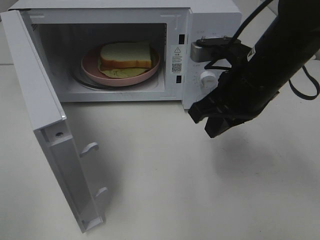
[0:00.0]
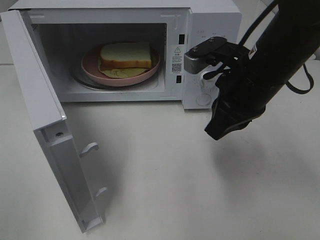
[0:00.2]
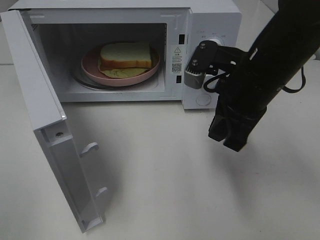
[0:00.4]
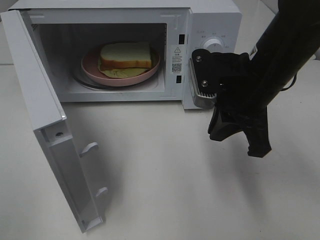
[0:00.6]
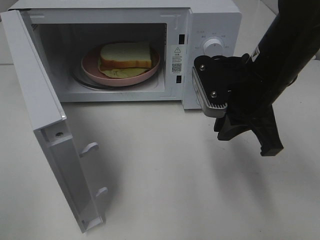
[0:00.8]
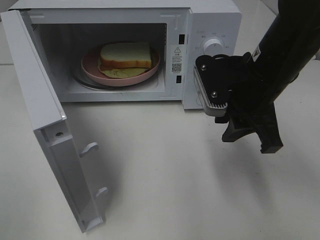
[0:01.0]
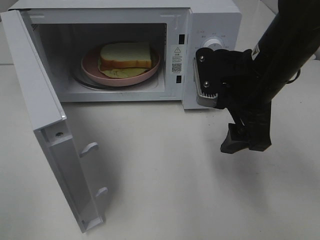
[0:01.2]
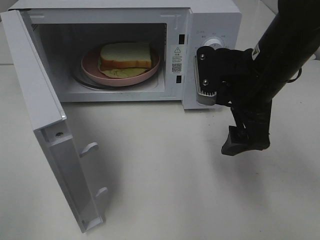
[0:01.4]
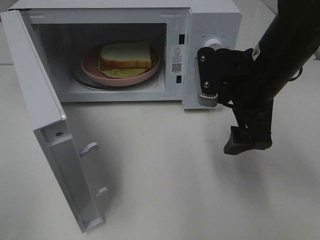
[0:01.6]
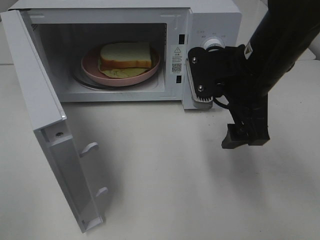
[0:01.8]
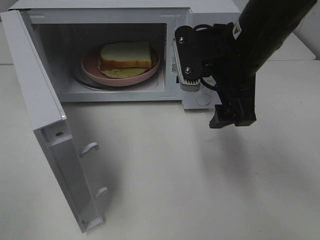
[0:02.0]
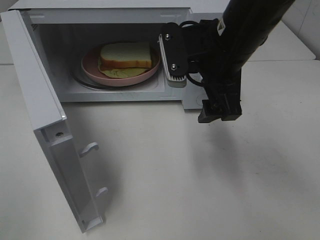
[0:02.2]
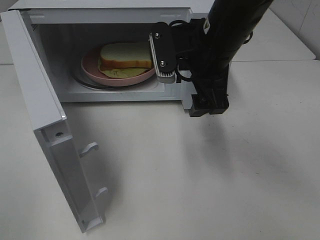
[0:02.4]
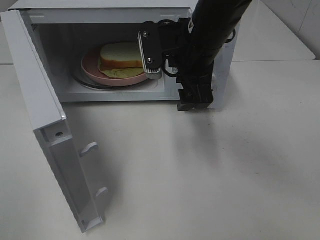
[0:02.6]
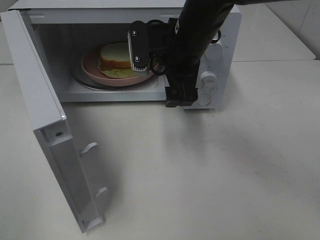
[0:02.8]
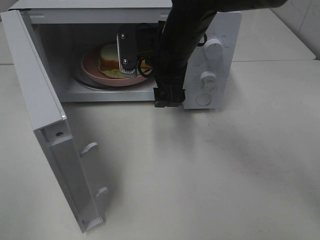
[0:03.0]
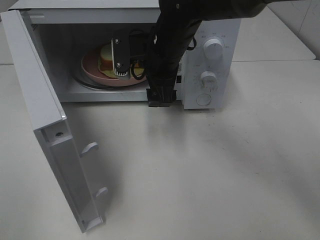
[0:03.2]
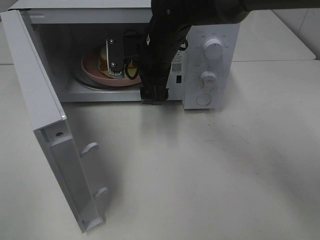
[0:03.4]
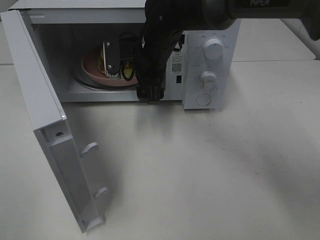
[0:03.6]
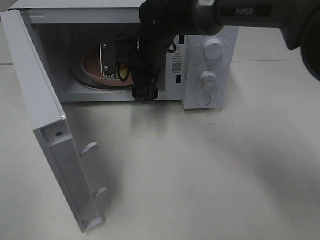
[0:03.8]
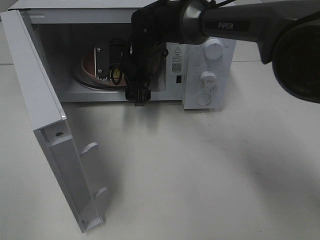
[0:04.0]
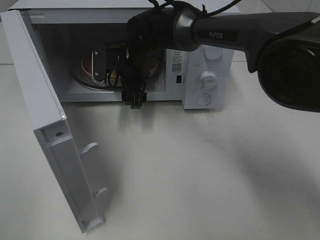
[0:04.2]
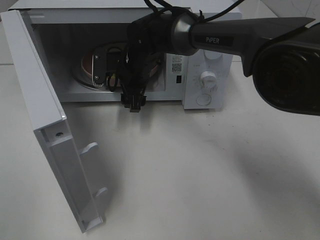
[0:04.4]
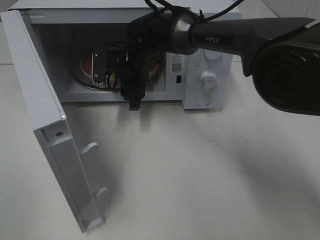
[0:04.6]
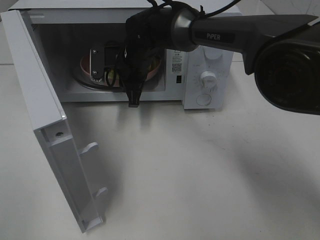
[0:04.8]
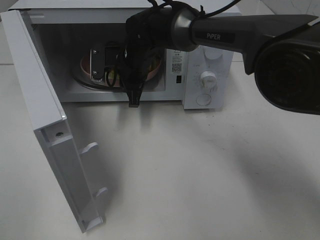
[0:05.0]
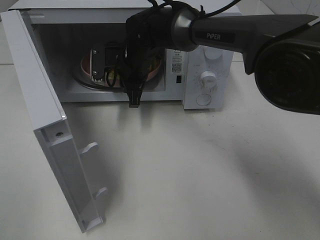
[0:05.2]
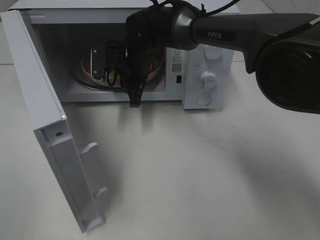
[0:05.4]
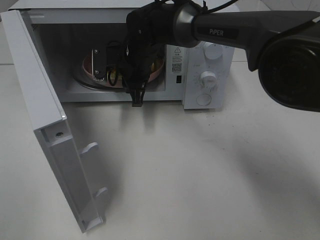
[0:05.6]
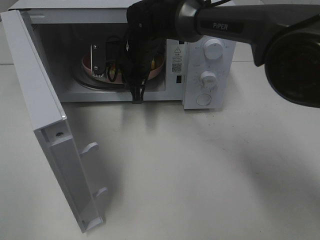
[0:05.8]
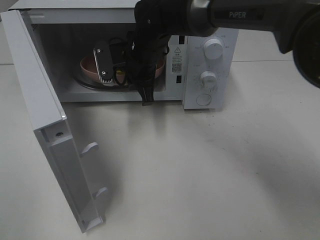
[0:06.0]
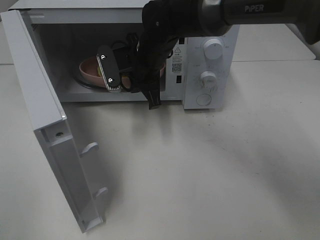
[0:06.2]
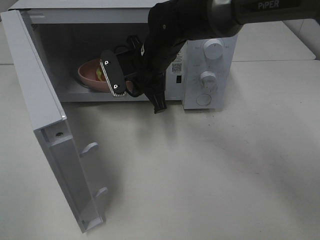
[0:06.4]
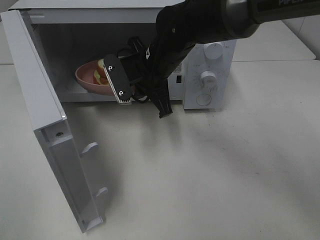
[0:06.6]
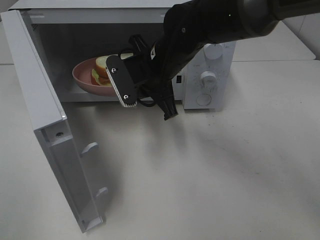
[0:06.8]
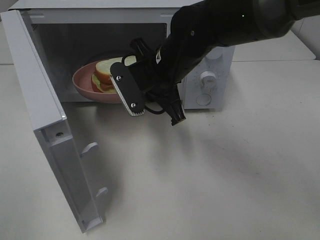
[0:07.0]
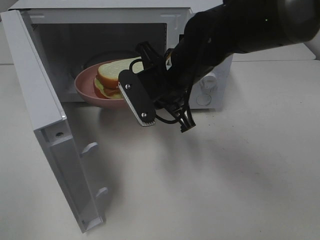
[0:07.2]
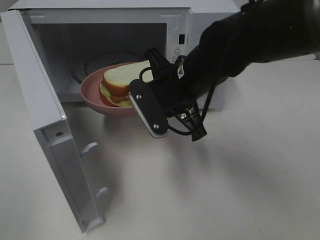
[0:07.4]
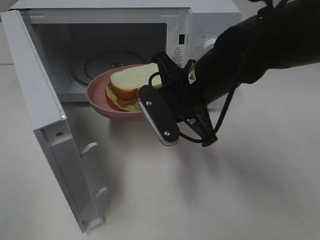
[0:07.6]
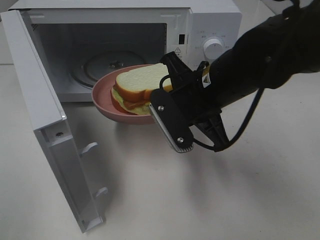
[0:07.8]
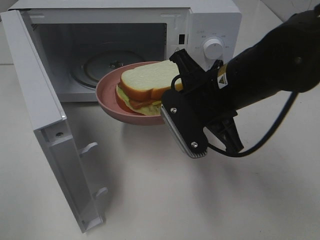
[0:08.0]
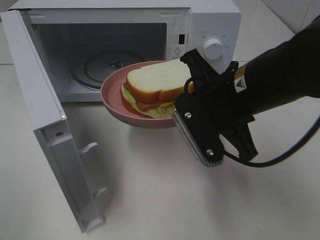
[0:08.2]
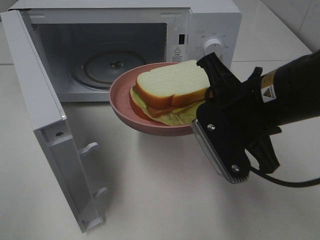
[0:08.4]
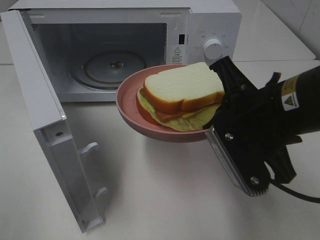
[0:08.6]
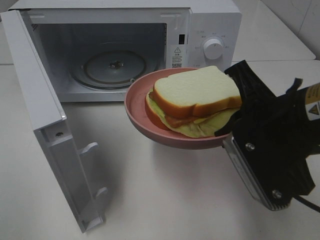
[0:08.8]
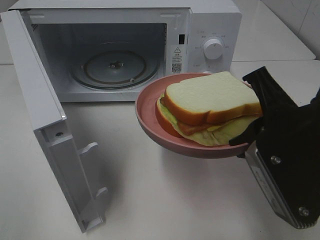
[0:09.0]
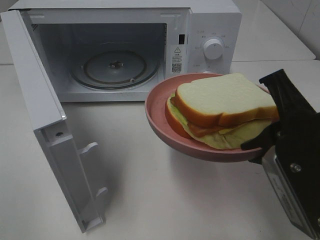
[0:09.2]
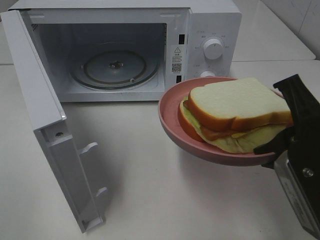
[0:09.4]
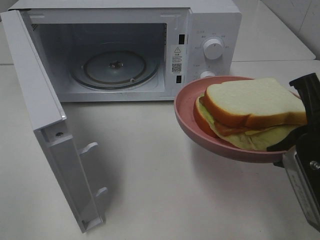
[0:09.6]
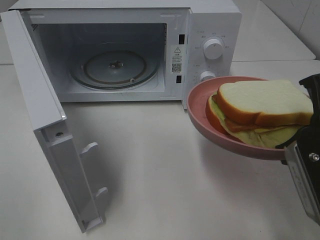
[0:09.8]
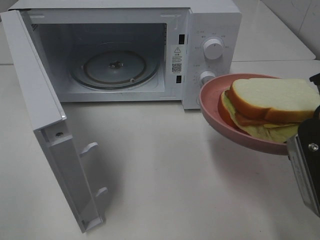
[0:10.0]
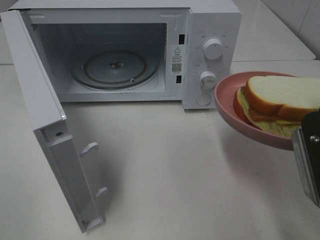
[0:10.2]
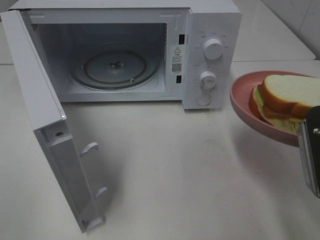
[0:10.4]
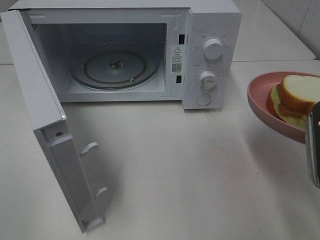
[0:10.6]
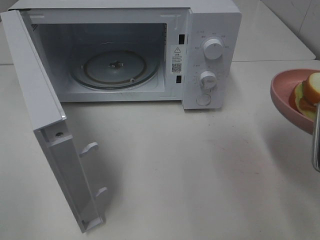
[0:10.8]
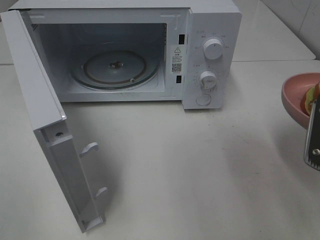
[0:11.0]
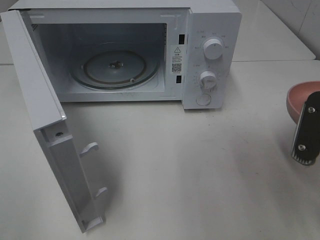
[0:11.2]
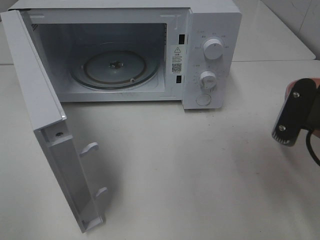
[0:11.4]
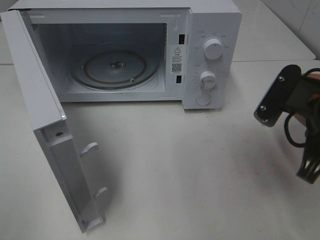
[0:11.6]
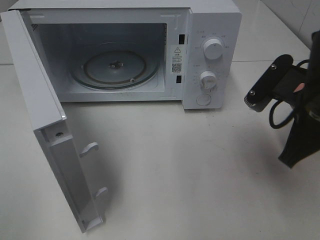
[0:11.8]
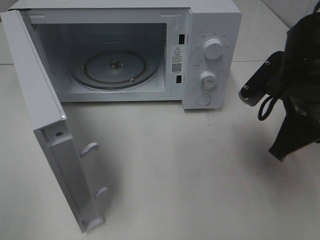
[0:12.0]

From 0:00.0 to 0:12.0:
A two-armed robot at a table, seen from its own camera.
Task of the whole recording: Heat Sandwich.
Step, from 0:00.0 to 0:05.0: Right hand: grab the plate with the sandwich.
From 0:00.0 to 0:01.6: The right gripper opens up.
From 0:01.6 to 0:03.0: The right gripper goes about 15 cm to the left and forward.
From 0:03.0 to 0:04.4: The right gripper travels downward, forward and to the left by roughly 15 cm.
From 0:04.4 to 0:06.0: The right gripper closes up.
From 0:06.0 to 0:07.6: The right gripper shifts some 15 cm backward and to the right.
From 0:07.6 to 0:09.0: The right gripper heads backward and to the right, covering about 15 cm.
From 0:09.0 to 0:10.4: The right gripper heads to the right, covering some 5 cm.
From 0:10.4 to 0:12.0: The right gripper moves forward, roughly 10 cm.

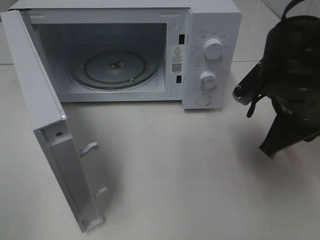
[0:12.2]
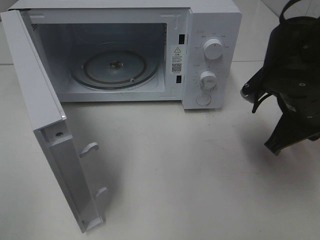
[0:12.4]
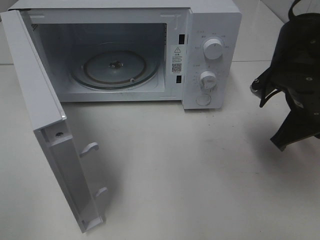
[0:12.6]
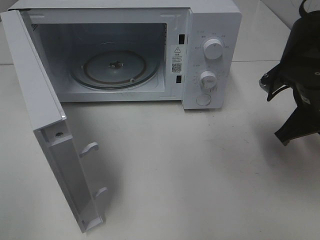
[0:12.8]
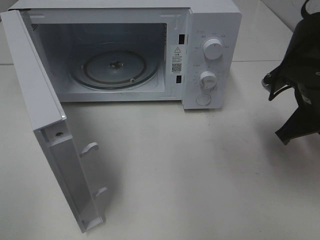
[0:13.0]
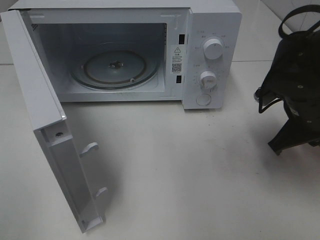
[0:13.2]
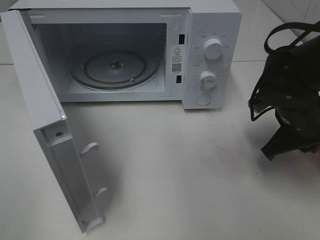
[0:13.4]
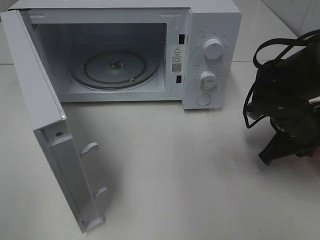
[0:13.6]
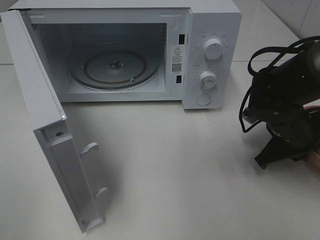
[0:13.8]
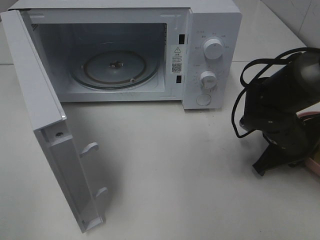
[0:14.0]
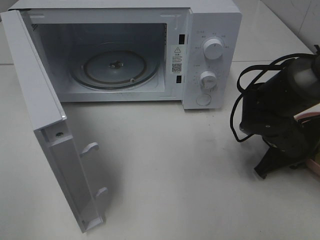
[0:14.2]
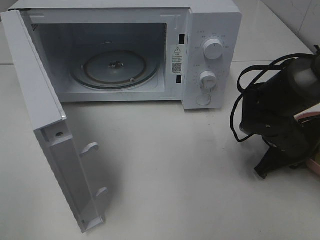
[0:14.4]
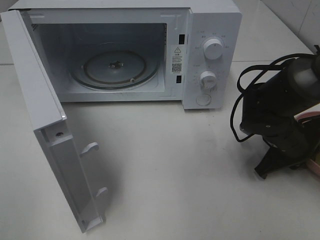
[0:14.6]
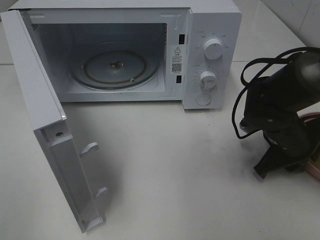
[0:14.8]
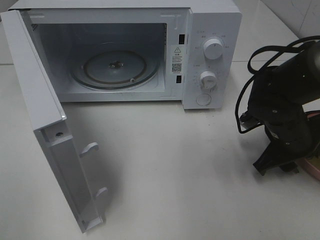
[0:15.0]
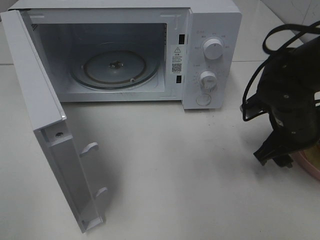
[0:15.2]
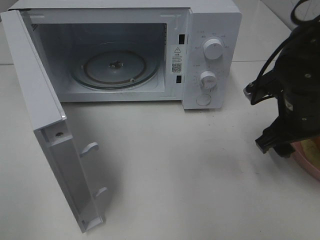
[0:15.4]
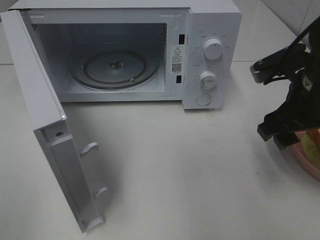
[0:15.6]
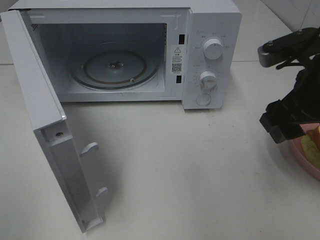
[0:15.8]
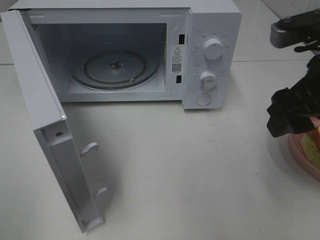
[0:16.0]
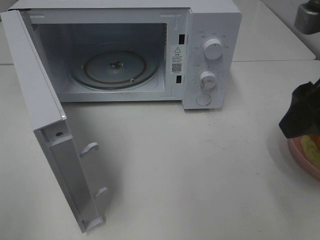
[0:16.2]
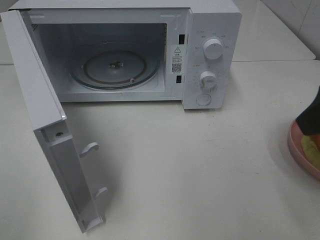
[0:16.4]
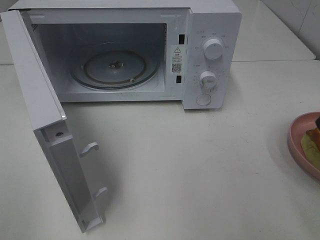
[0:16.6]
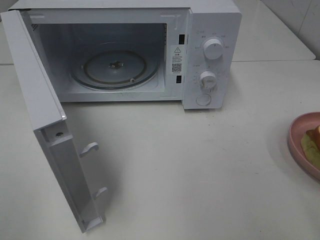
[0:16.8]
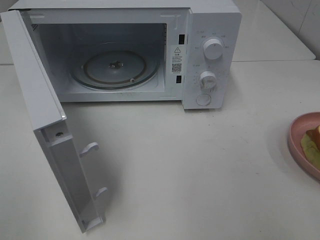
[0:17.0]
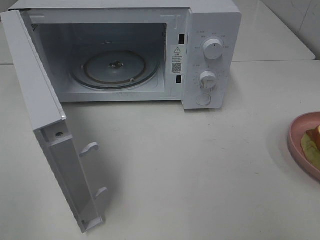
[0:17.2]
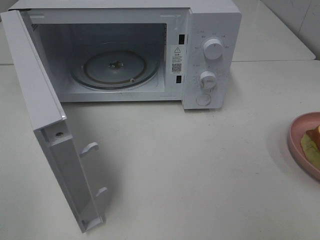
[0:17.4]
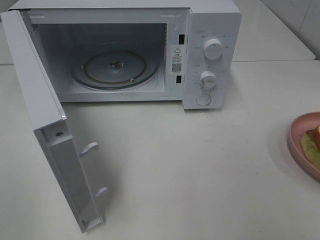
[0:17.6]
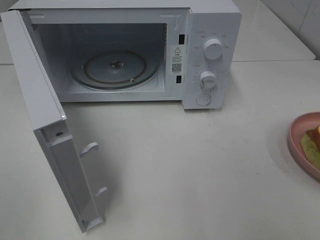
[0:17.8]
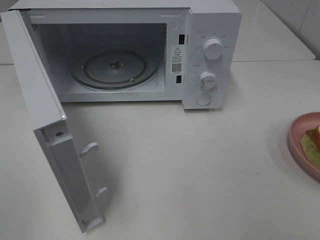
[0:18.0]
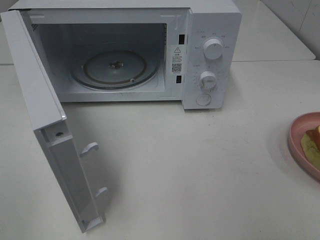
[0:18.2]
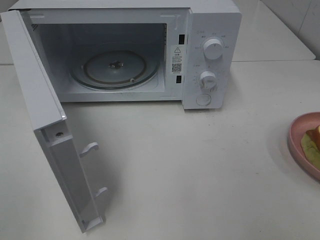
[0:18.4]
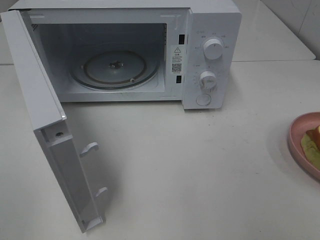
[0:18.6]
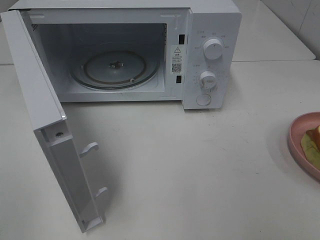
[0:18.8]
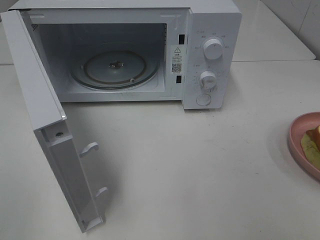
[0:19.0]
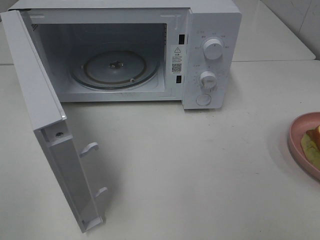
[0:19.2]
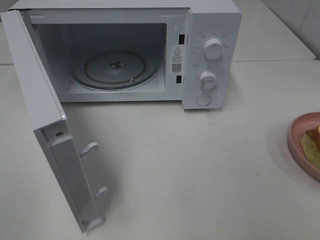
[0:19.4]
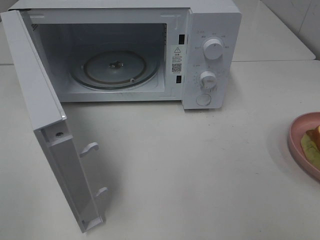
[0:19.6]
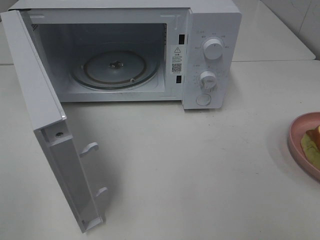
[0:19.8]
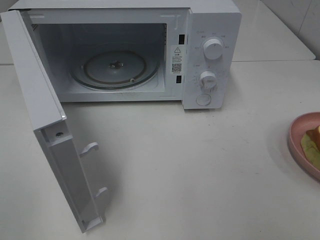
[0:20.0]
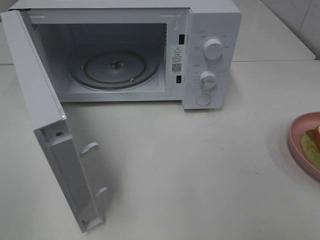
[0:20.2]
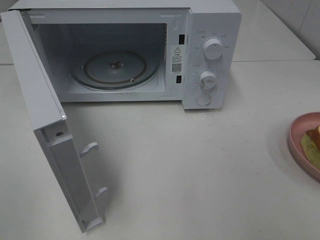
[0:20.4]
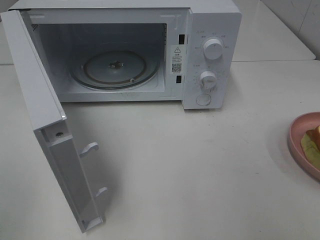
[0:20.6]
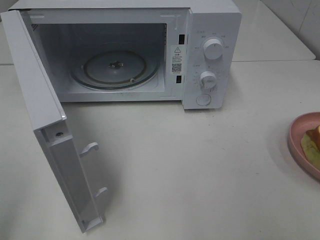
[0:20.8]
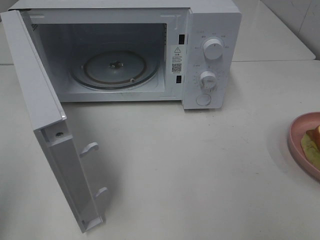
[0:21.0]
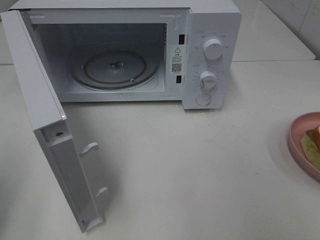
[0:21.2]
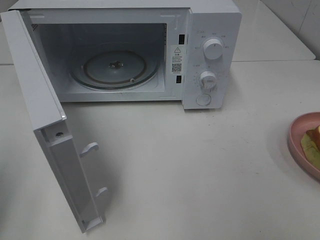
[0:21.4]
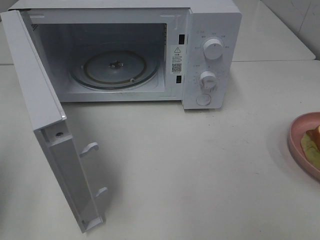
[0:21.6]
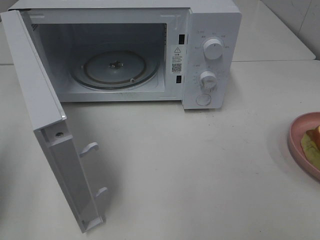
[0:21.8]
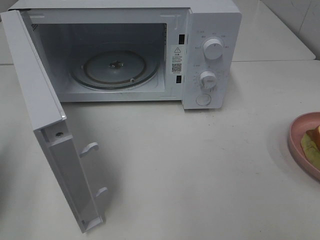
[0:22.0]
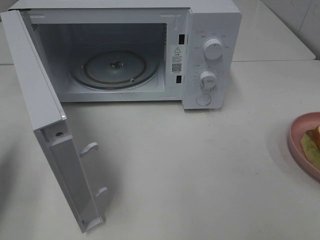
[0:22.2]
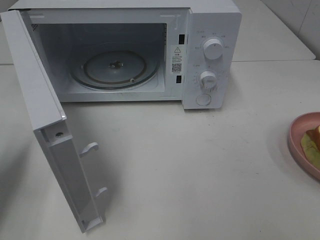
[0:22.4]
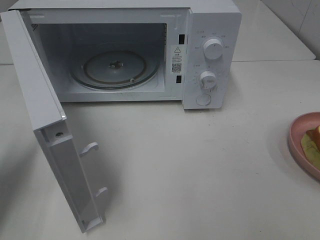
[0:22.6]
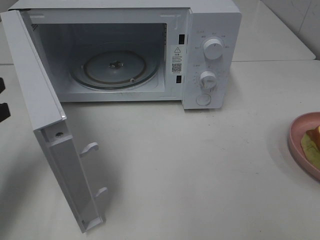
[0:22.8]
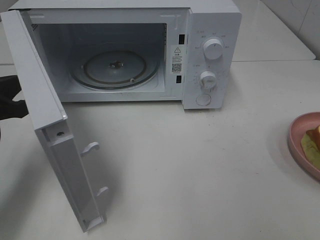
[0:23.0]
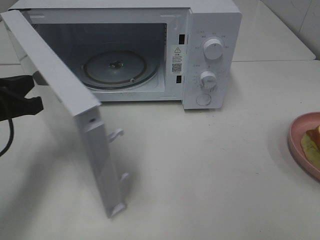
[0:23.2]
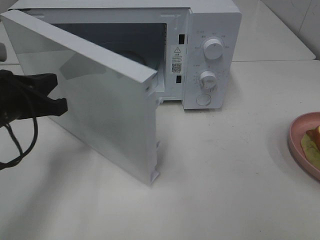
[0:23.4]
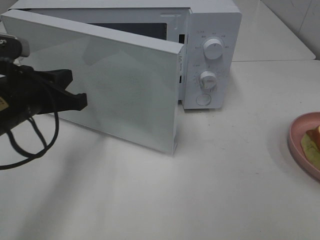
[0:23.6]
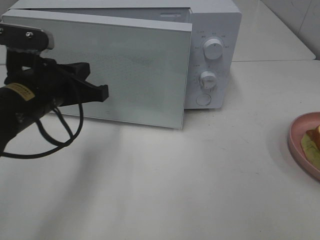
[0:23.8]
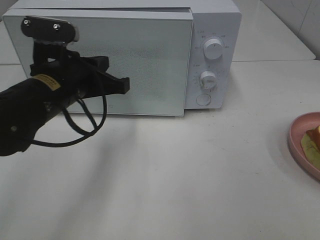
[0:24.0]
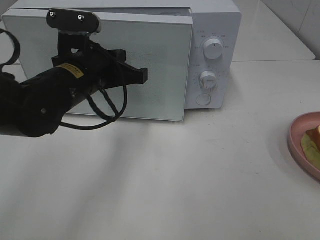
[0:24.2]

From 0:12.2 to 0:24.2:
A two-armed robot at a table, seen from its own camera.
Task of the whole recording: Heat Sandwich.
Step, from 0:12.2 to 0:15.6: Right hand: place the plate on the table.
From 0:12.2 to 0:13.8: The right gripper shifts about 10 cm downward.
From 0:13.8 to 0:15.2: The right gripper opens.
From 0:15.2 to 0:16.6: The right gripper travels upward and backward by roughly 25 cm.
From 0:18.2 to 0:19.8: Both grippers stay put.
From 0:21.2 to 0:22.6: The left gripper travels forward and downward by approximately 15 cm.
From 0:22.6 to 0:24.2: The left gripper shifts some 20 cm to the right and forward.
